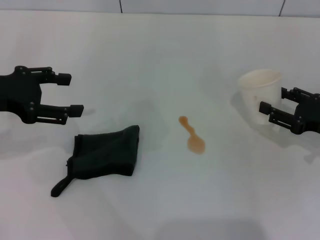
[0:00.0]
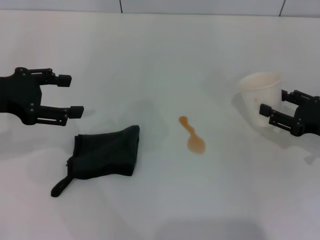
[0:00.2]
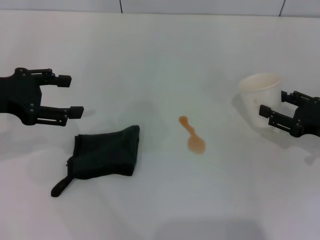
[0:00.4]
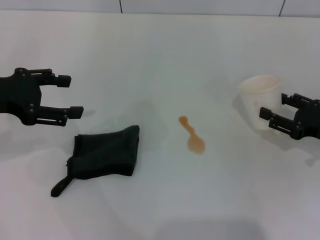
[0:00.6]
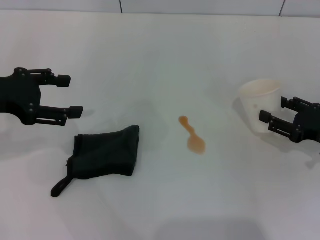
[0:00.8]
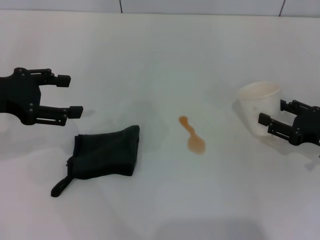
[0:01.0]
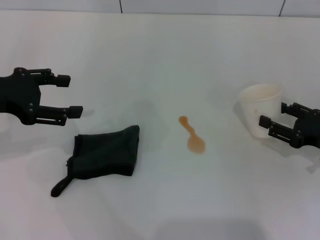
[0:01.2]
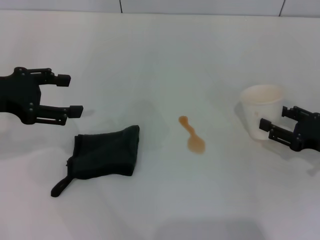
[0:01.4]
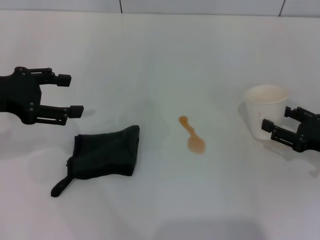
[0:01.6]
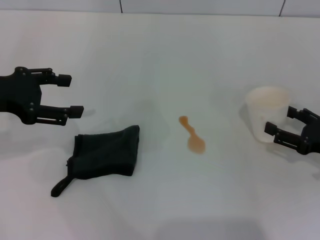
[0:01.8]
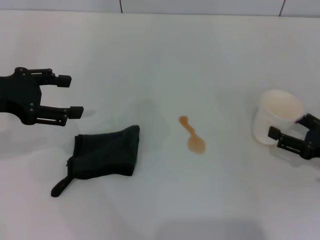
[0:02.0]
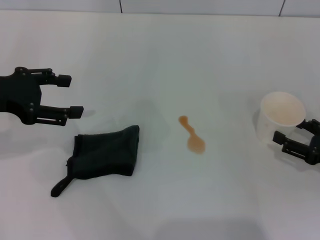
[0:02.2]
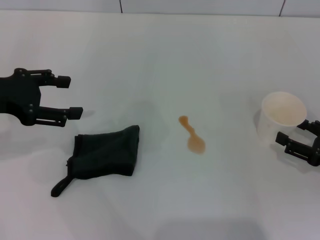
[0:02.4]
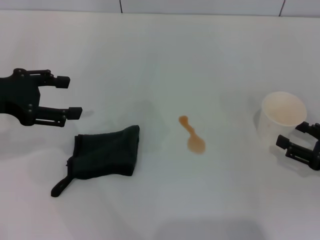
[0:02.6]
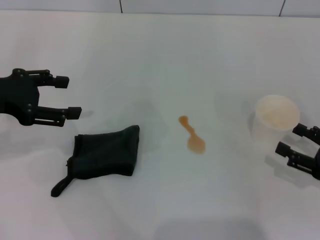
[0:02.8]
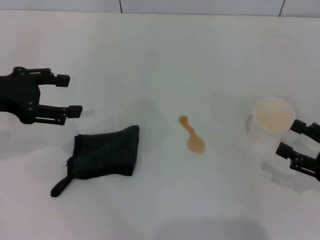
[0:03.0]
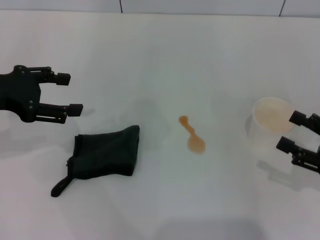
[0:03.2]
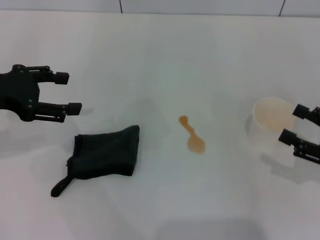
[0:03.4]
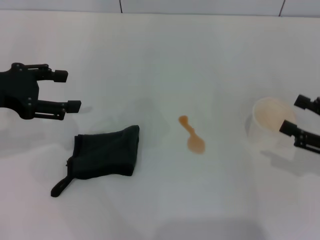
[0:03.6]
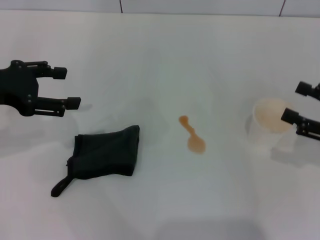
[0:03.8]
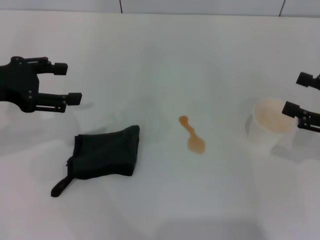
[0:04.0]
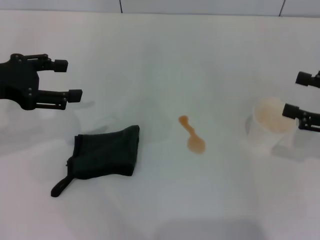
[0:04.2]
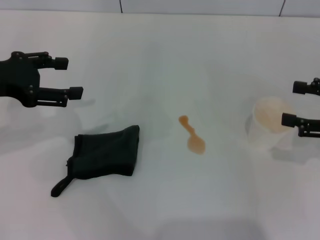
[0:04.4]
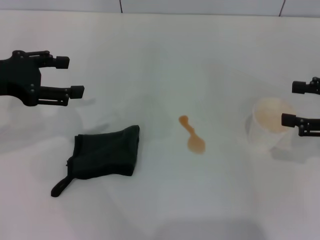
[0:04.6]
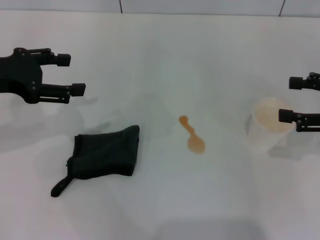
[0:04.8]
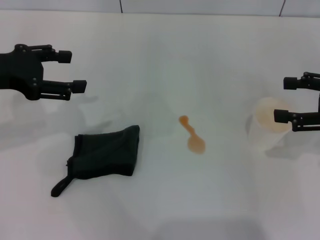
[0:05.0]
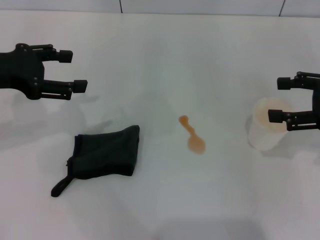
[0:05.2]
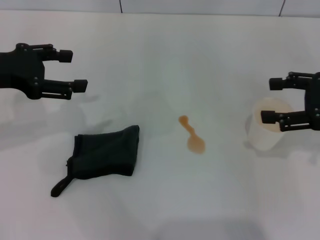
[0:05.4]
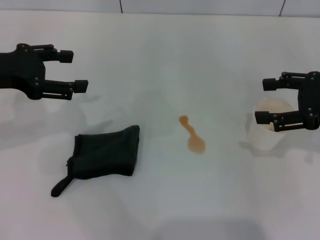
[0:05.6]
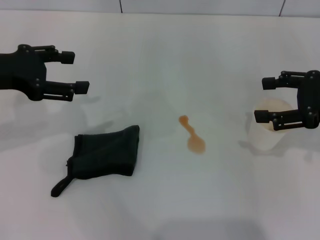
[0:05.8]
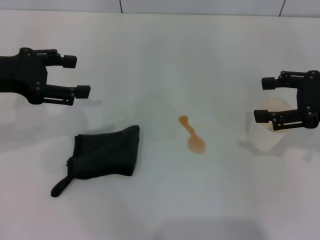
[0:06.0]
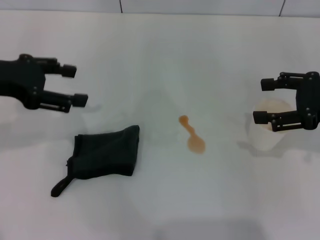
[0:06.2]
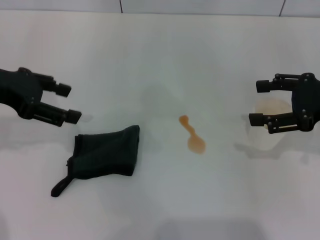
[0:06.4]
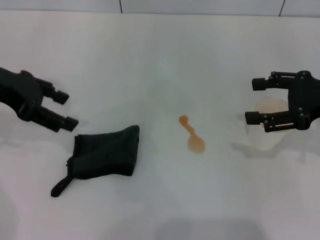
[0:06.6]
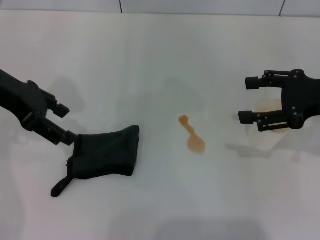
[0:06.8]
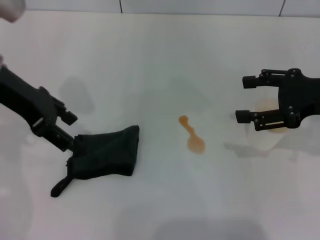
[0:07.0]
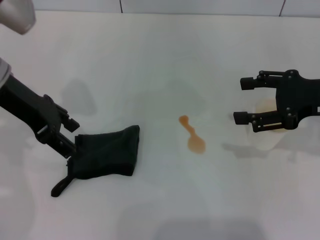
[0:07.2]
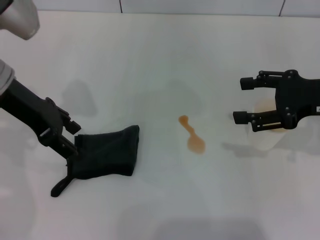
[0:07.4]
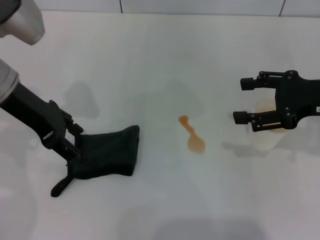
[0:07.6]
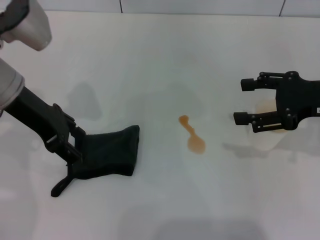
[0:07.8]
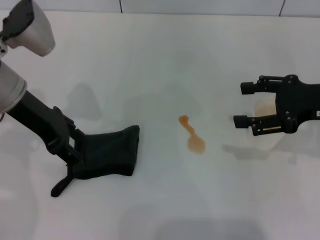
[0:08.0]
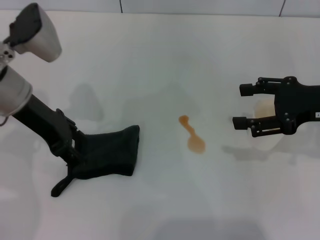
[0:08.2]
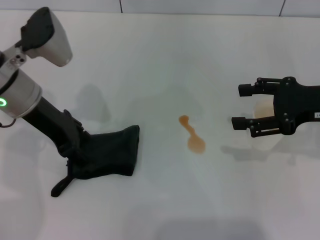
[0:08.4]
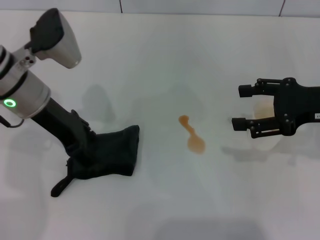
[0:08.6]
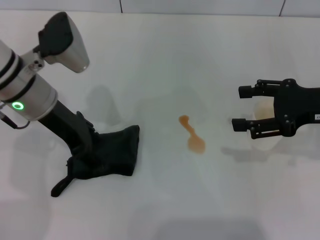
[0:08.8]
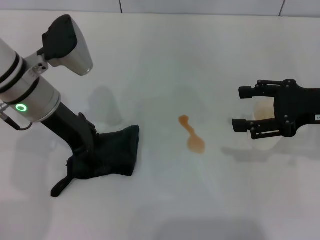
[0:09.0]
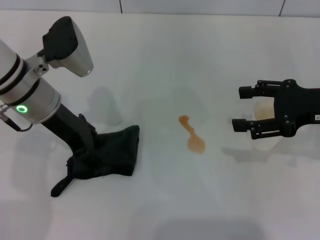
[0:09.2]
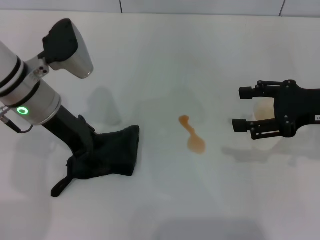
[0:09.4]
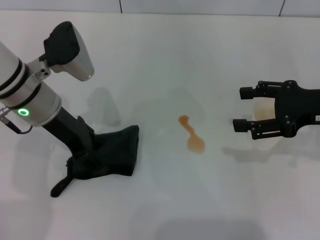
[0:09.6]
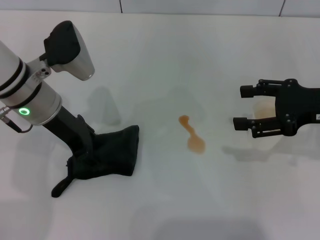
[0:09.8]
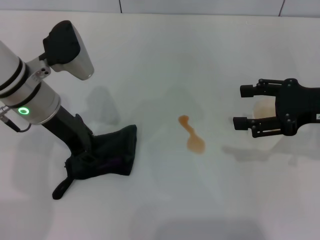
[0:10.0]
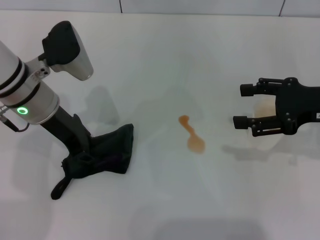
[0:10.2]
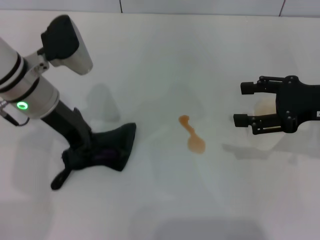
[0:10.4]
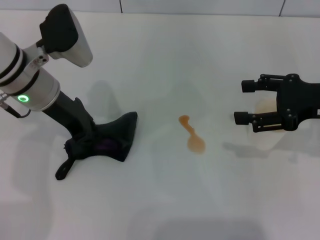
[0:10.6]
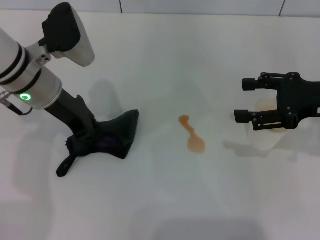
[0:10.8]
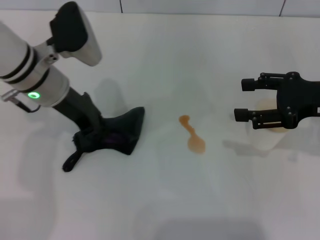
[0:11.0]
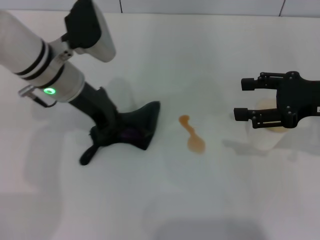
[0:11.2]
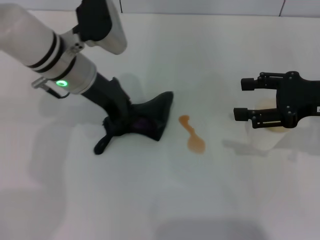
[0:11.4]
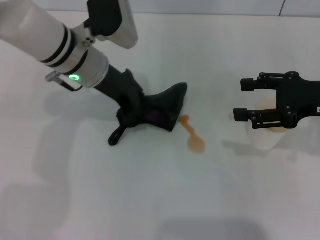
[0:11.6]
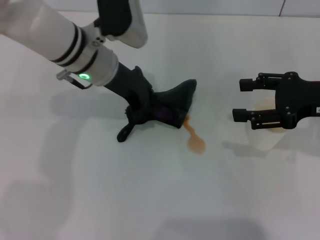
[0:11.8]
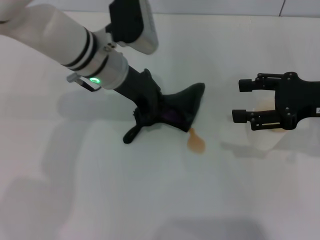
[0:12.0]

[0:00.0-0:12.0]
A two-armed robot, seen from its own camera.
Step, 0:00.0 to 0:03.6: Stand the paper cup upright with the right gripper.
Step, 0:03.8 to 0:09.8: Grasp the rag with the left gripper.
0:00.0 to 0:01.6: The grippers make only small movements.
0:01.6 to 0:03.0: The right gripper goes some 5 cm backward, and opens.
0:03.0 to 0:04.4: The right gripper is displaced upward and forward by approximately 10 cm.
0:04.4 to 0:06.0: The right gripper ends up about 5 cm from where it was.
0:06.0 to 0:07.6: The left gripper heads to the right, covering about 5 cm.
0:07.6 to 0:09.0: The left gripper ends up approximately 5 cm from where it was.
0:09.0 to 0:10.4: The left gripper closes up.
0:10.4 to 0:12.0: The left gripper heads to the right, covering roughly 10 cm.

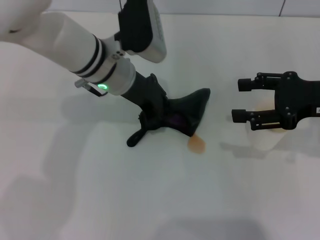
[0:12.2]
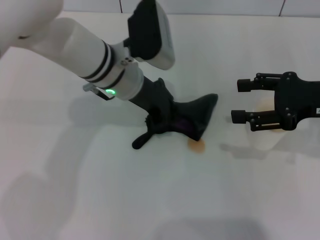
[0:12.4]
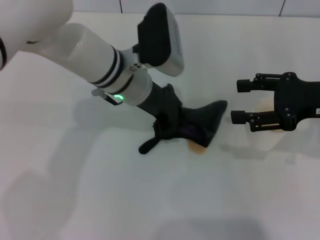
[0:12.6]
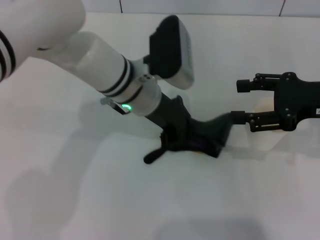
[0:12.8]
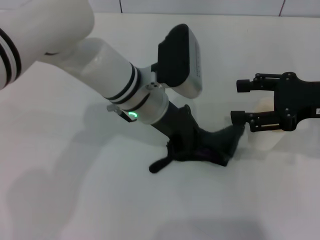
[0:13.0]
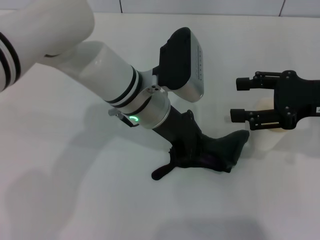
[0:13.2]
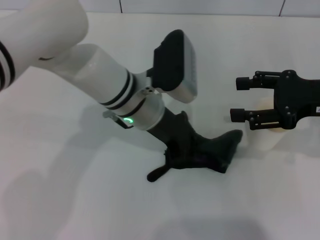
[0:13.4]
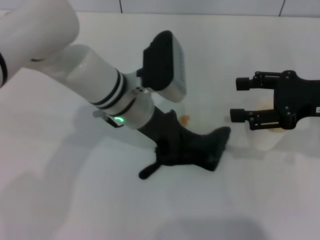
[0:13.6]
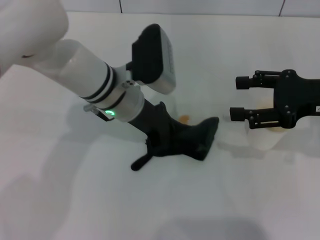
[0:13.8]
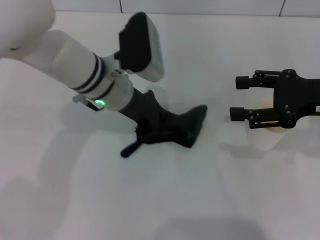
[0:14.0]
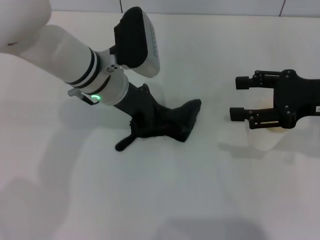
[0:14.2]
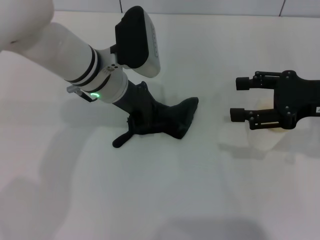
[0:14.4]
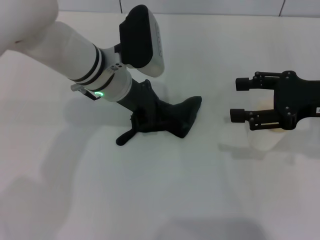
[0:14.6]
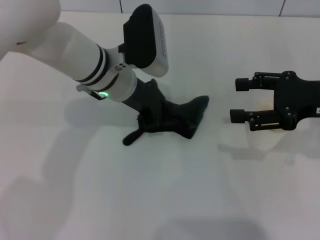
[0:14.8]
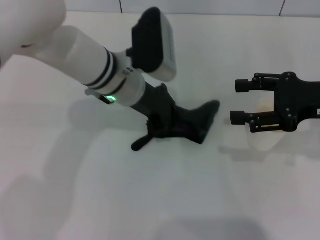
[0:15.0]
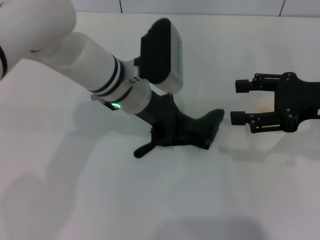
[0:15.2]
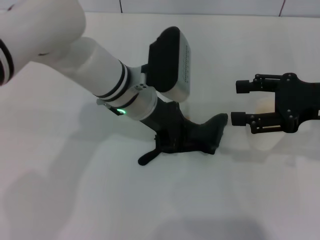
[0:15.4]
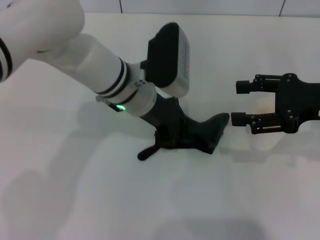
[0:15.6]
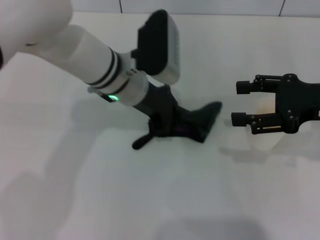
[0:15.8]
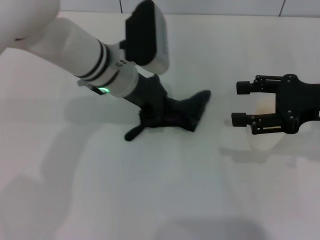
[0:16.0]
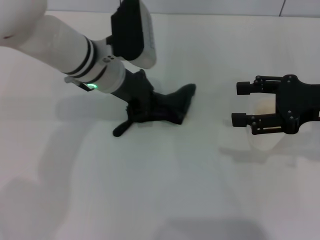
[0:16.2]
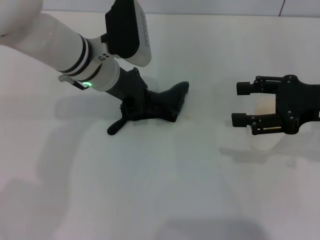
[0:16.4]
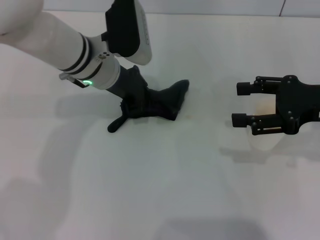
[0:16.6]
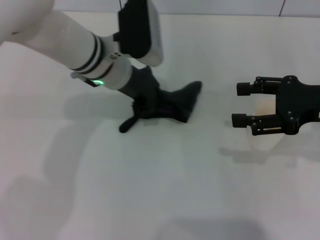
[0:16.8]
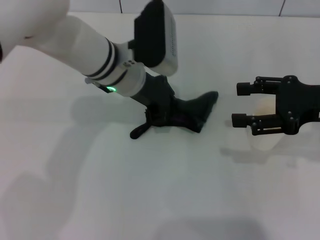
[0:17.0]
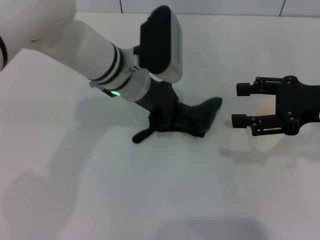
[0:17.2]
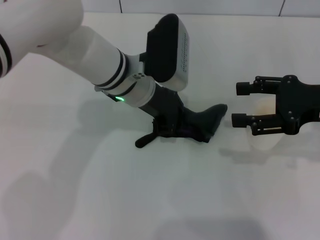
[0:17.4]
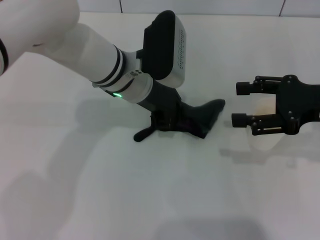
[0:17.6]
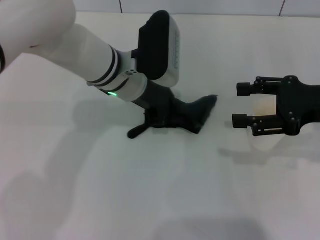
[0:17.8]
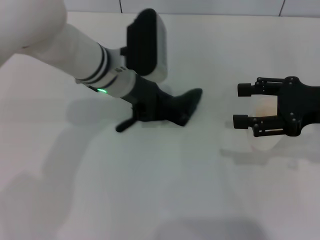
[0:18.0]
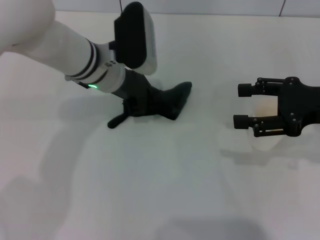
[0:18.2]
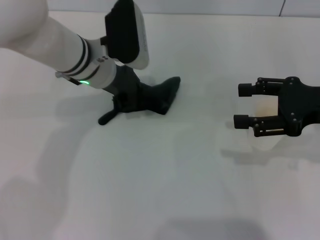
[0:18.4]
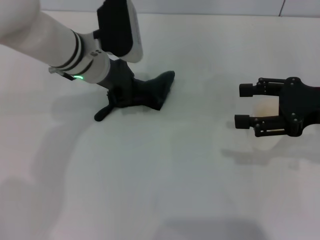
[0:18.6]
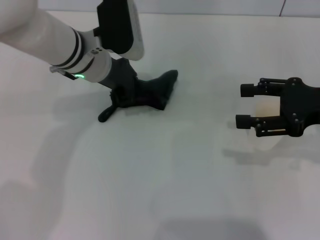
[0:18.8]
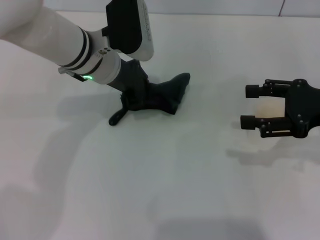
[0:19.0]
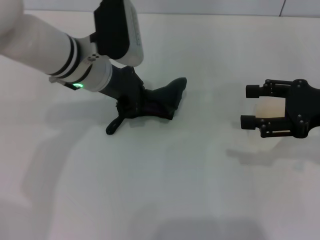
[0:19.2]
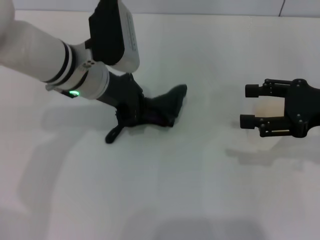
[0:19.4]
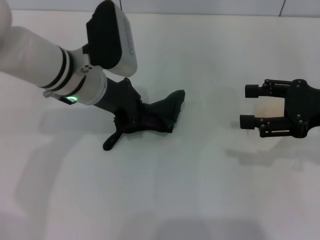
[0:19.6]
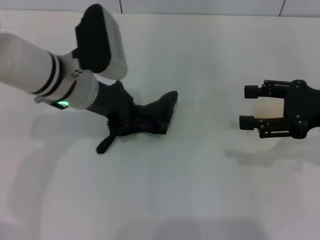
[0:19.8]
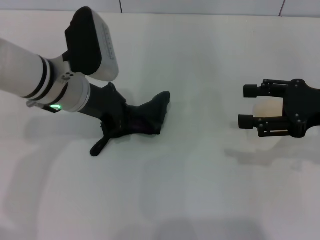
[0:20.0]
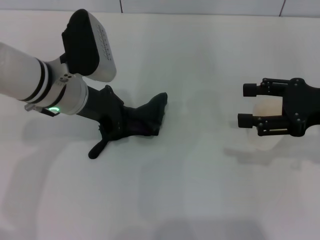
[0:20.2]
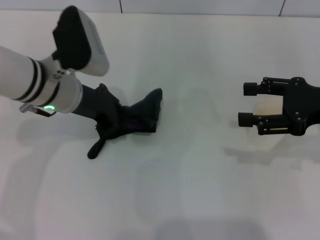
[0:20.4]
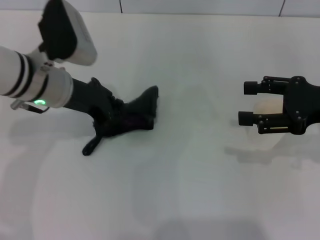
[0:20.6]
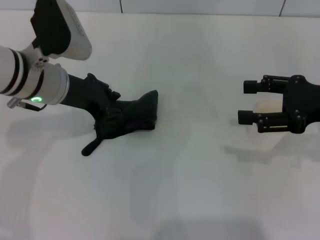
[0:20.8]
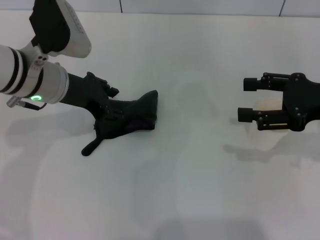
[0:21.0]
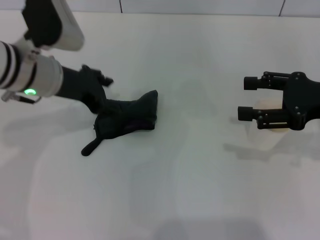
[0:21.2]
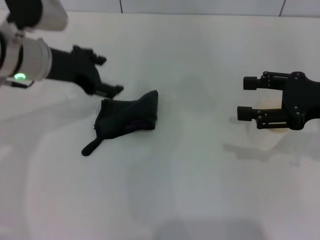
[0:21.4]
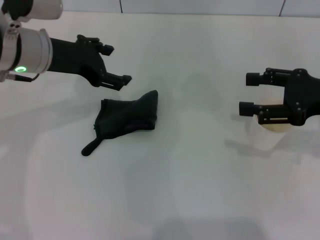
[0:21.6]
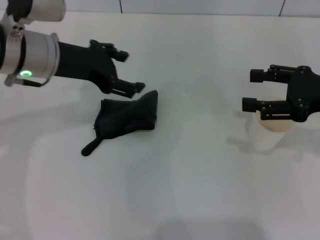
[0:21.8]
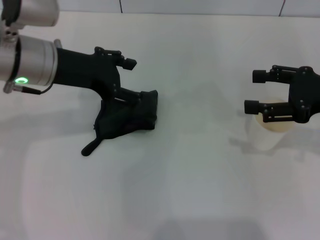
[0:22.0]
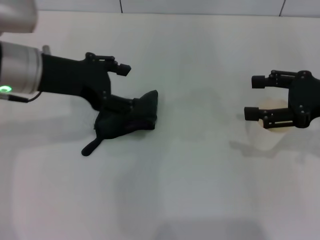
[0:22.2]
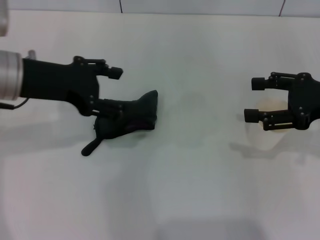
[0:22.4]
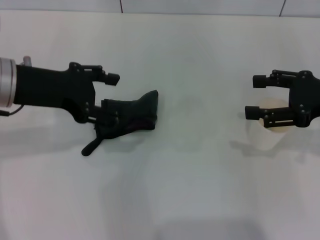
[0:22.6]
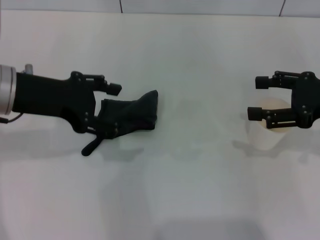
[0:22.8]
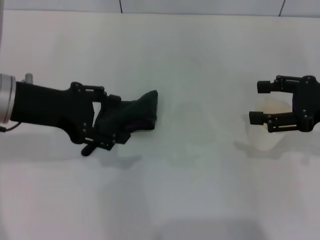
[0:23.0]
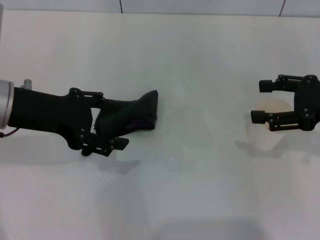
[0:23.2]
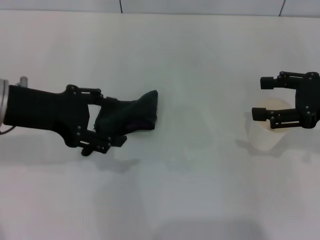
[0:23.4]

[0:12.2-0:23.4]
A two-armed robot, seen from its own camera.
Step, 0:12.2 to 0:18.2: Wipe the stains off the table with the left gripper.
Step, 0:18.4 to 0:21.2: Place the rag on the table with the left gripper.
0:13.8 to 0:15.4: The grippers move only a little.
0:17.0 to 0:18.6: The left gripper moves some 5 cm.
0:18.6 to 0:20.2: The left gripper shifts approximately 5 cm backward.
0:20.2 to 0:21.8: The left gripper moves upward, approximately 5 cm, and opens its fingers.
0:21.8 to 0:23.4: The left gripper shifts about 5 cm backward.
